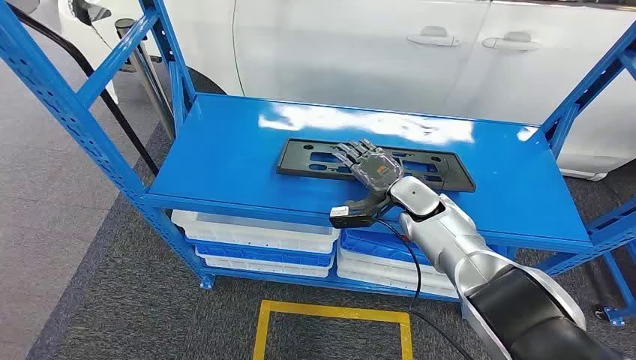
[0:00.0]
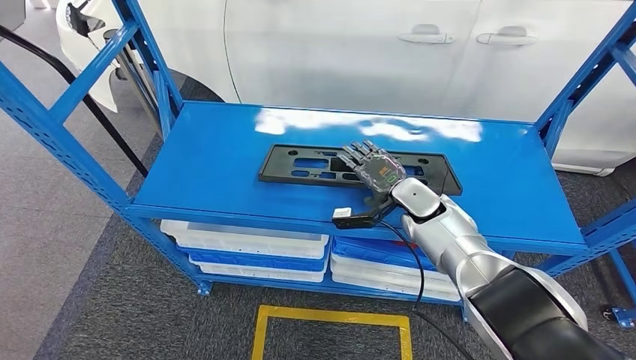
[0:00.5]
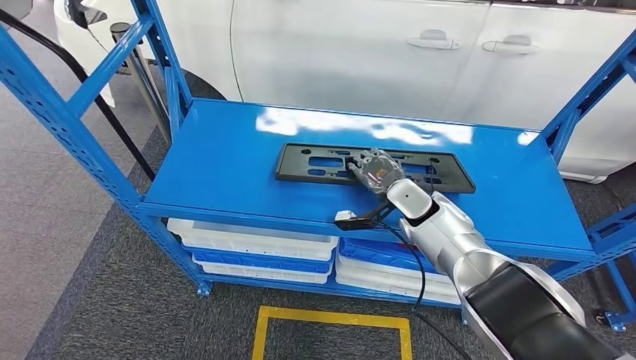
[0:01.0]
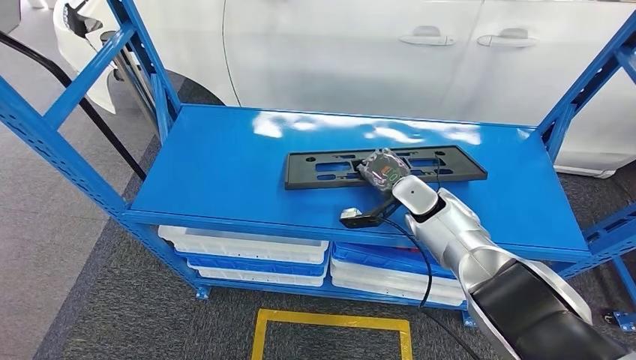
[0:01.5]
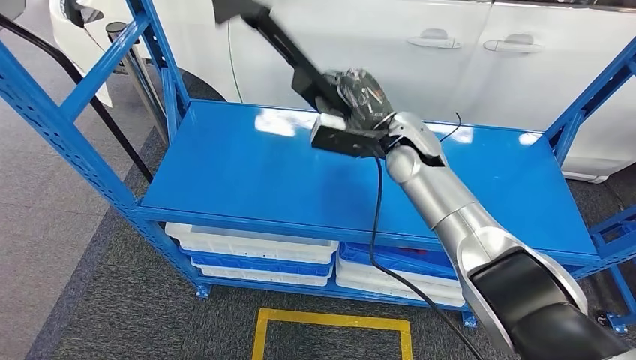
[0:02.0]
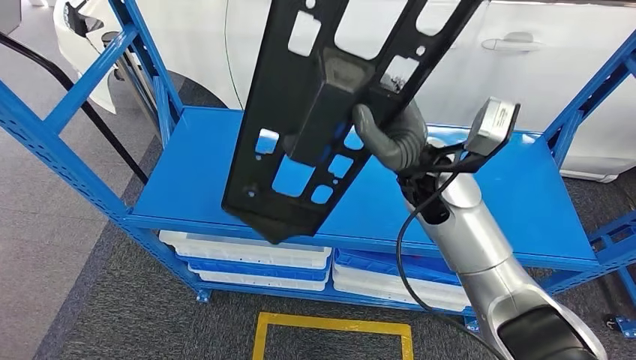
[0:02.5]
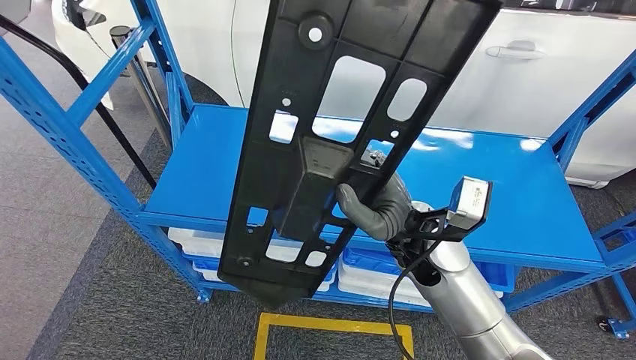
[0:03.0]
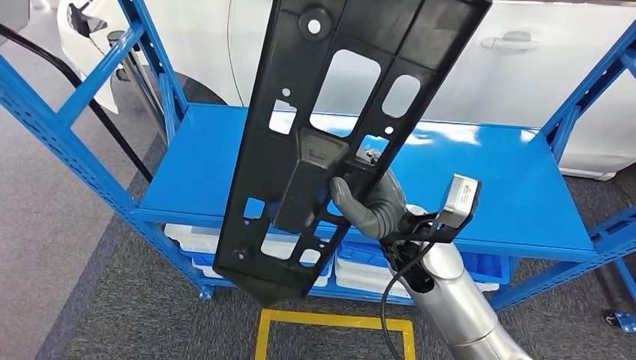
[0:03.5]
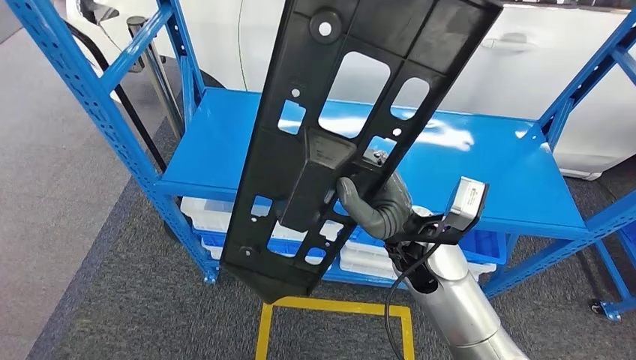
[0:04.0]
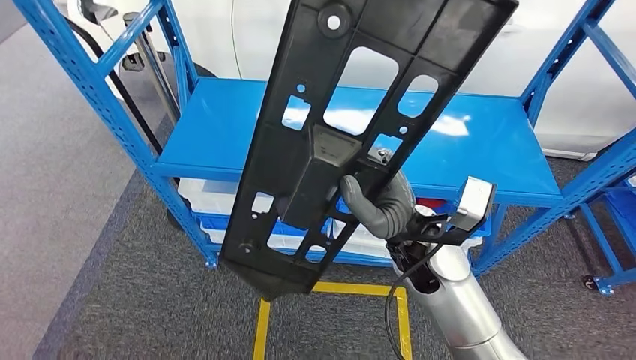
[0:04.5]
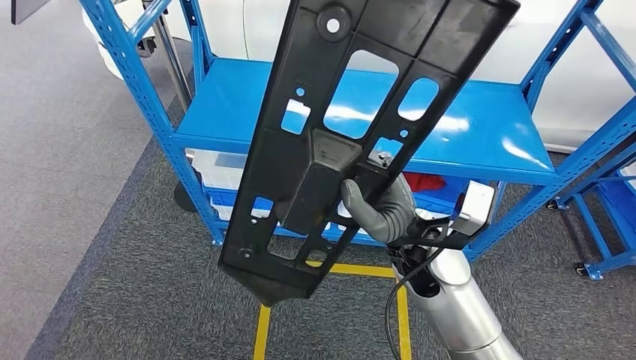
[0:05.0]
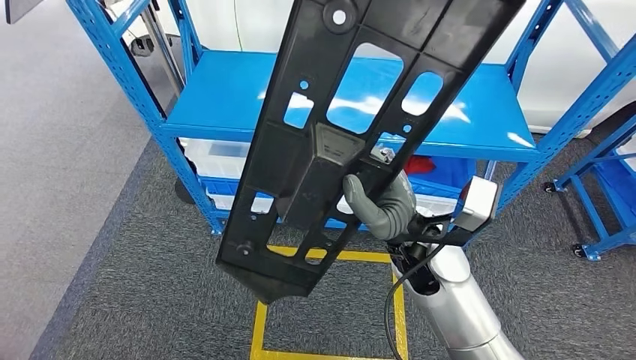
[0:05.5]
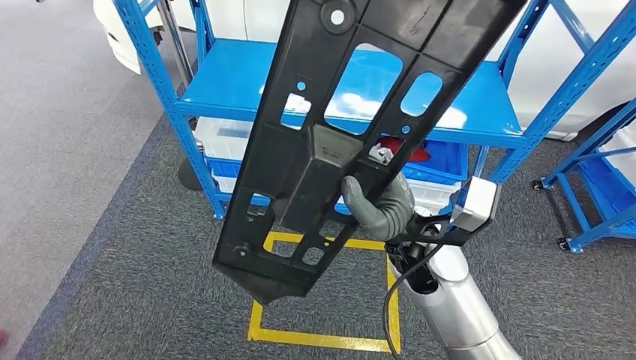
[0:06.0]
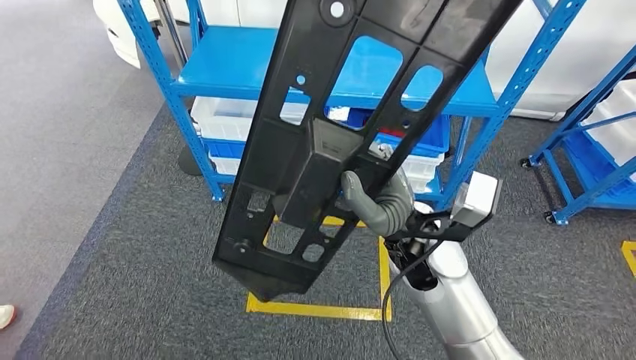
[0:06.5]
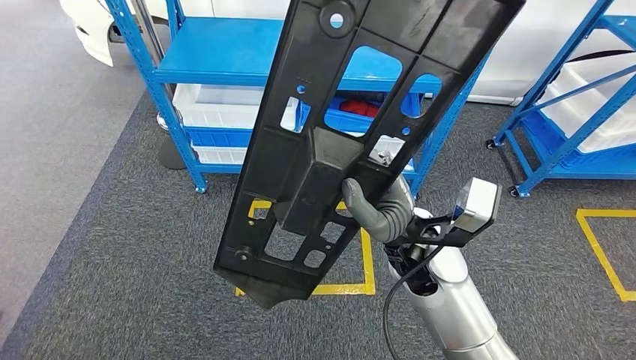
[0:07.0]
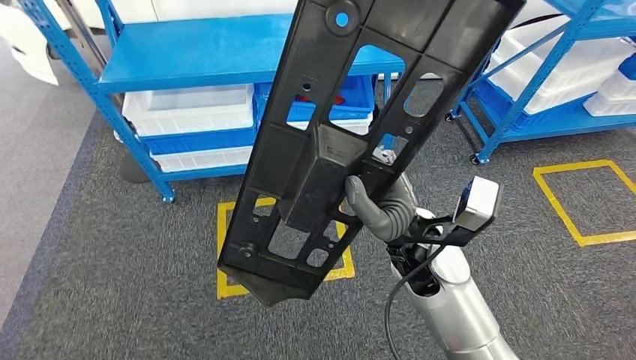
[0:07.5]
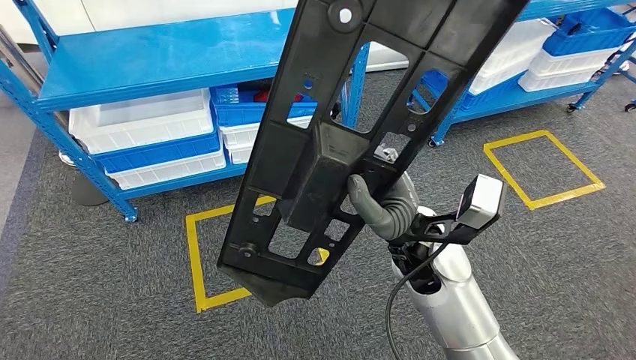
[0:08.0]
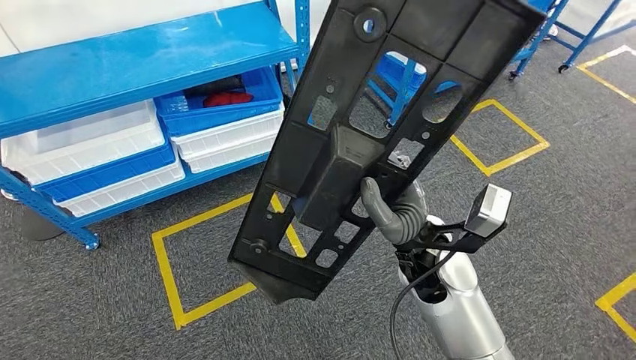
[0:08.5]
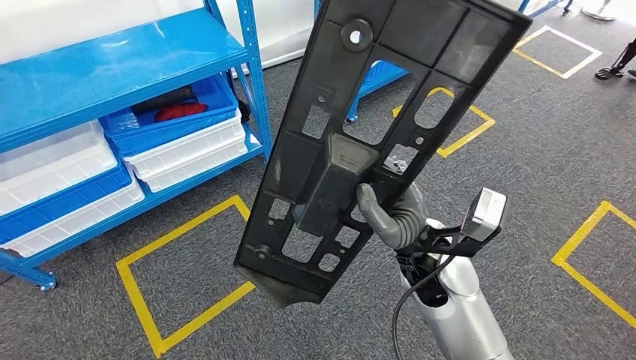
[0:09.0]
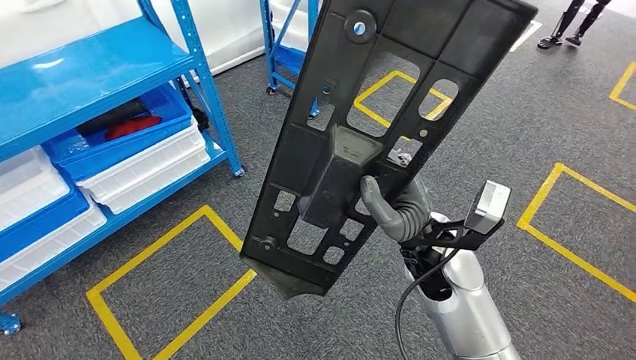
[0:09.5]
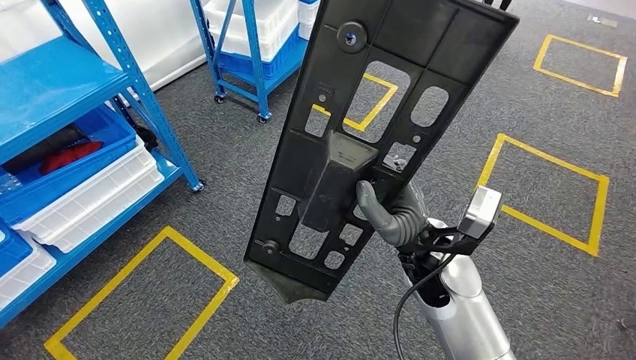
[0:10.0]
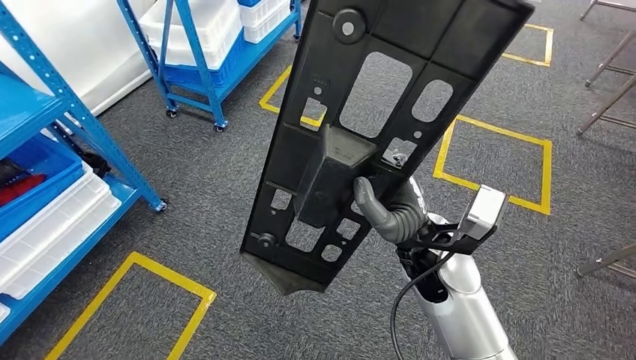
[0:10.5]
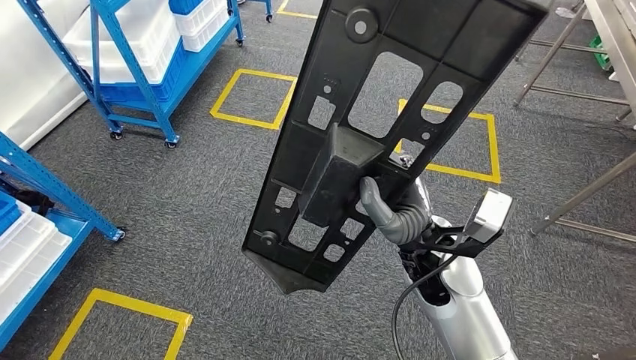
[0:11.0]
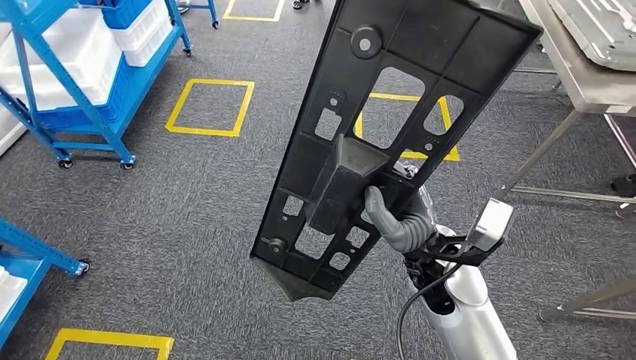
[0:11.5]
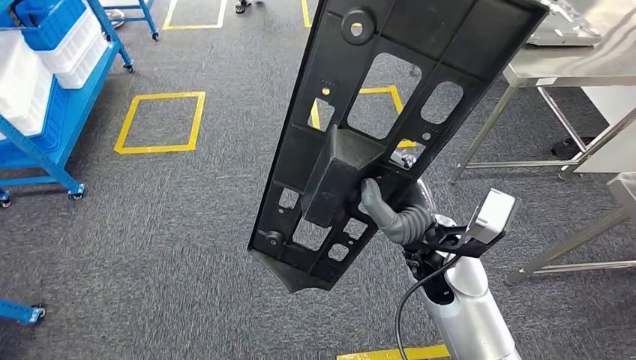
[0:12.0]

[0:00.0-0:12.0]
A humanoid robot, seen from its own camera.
Step, 0:00.0 to 0:02.5: Pick up the large material from the shelf.

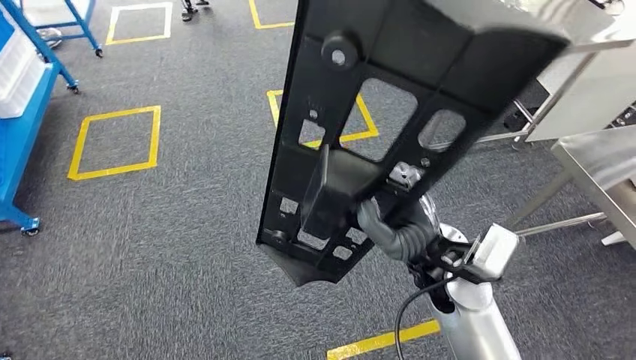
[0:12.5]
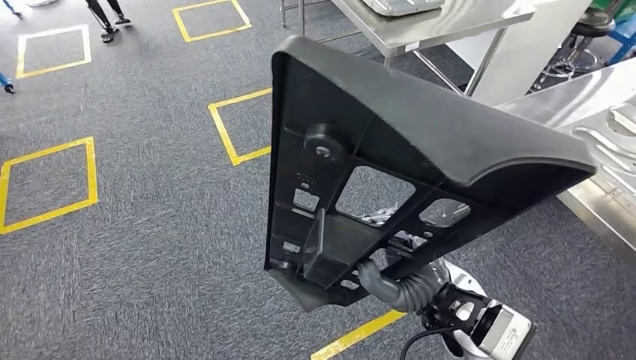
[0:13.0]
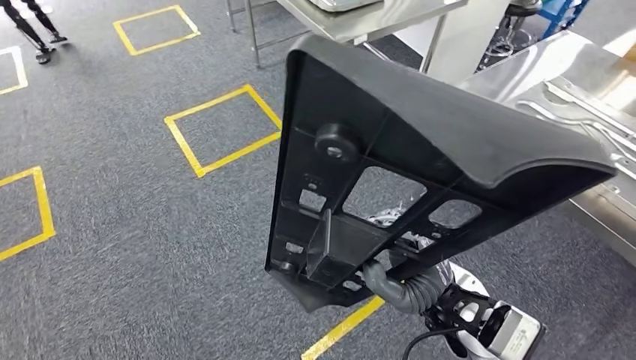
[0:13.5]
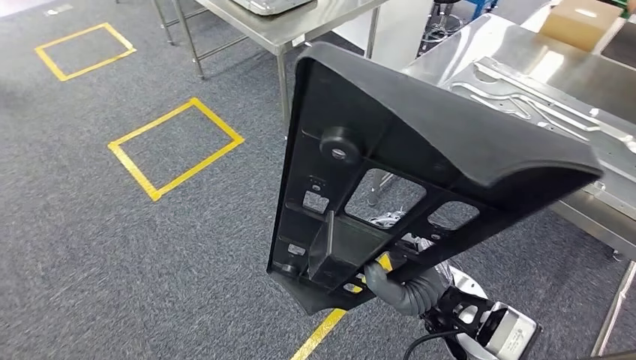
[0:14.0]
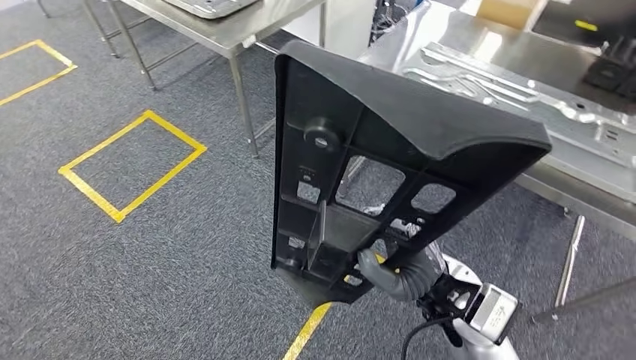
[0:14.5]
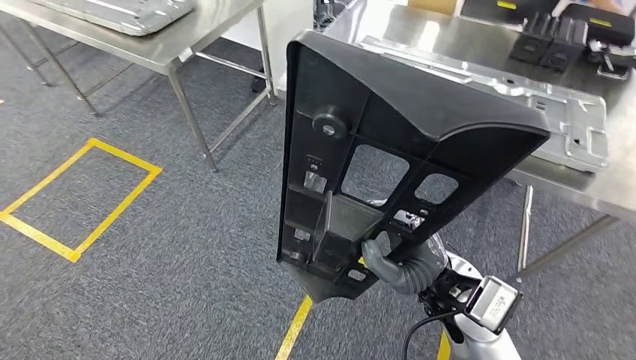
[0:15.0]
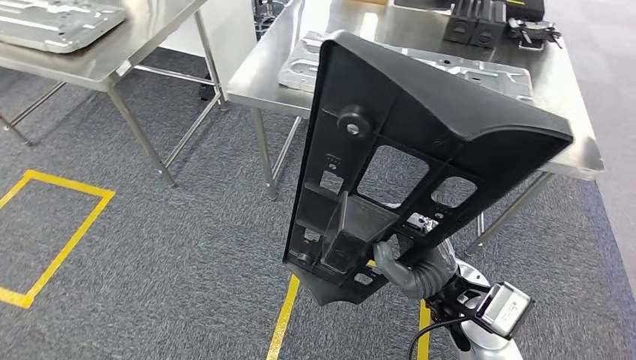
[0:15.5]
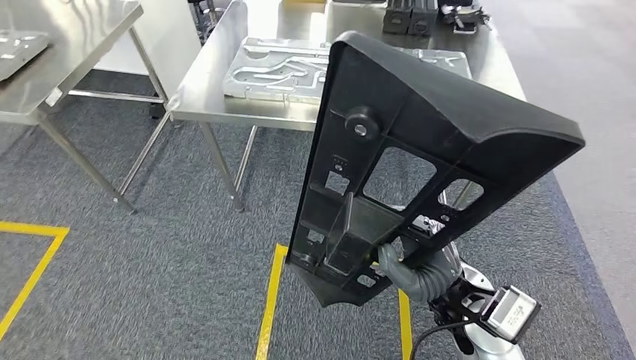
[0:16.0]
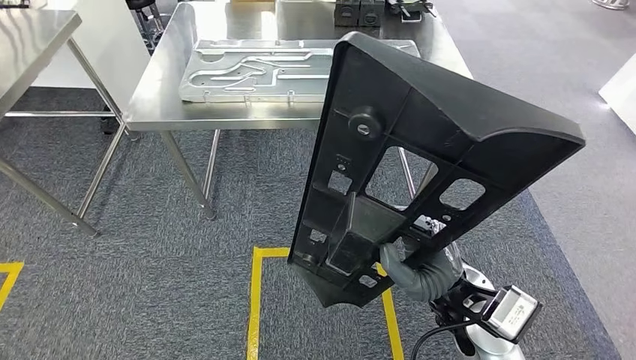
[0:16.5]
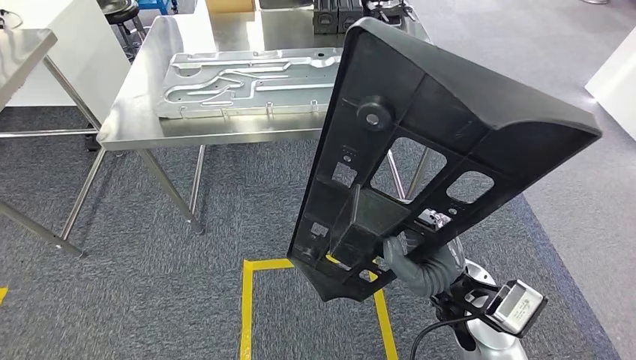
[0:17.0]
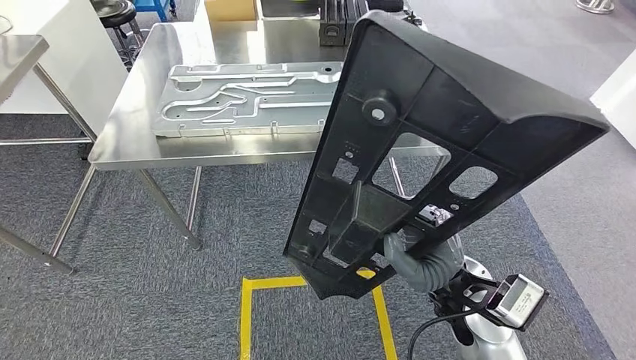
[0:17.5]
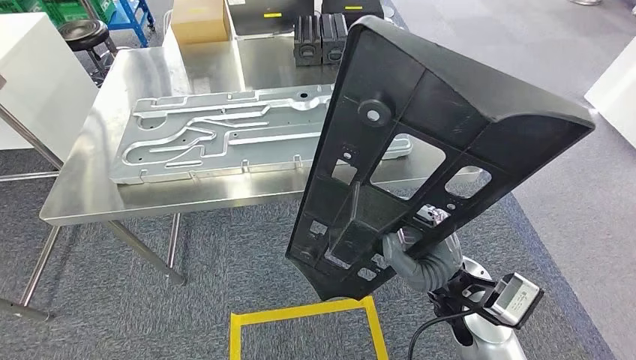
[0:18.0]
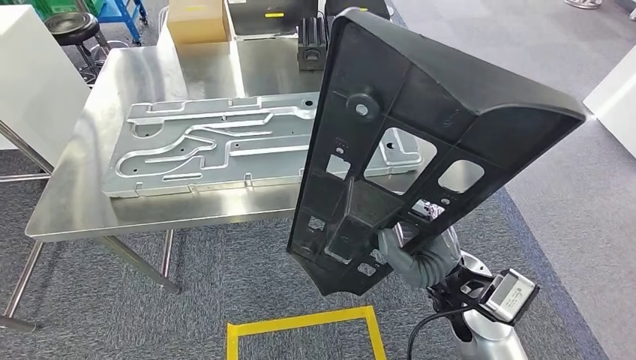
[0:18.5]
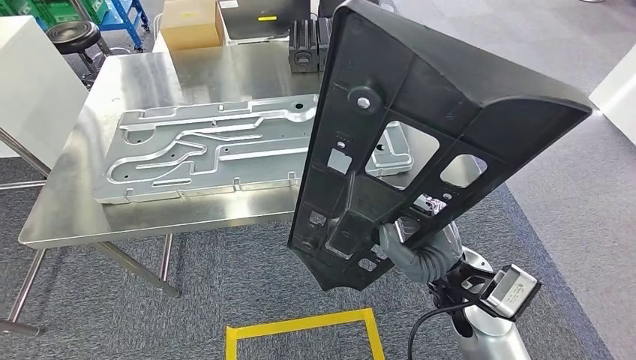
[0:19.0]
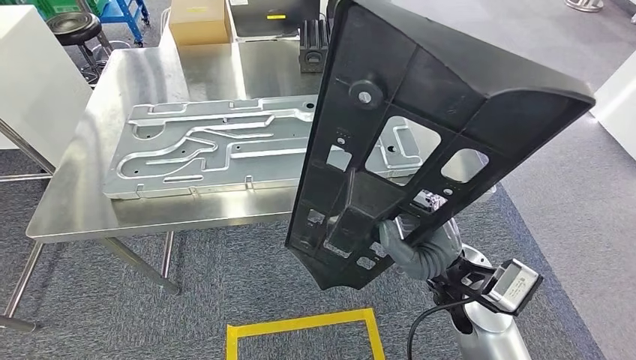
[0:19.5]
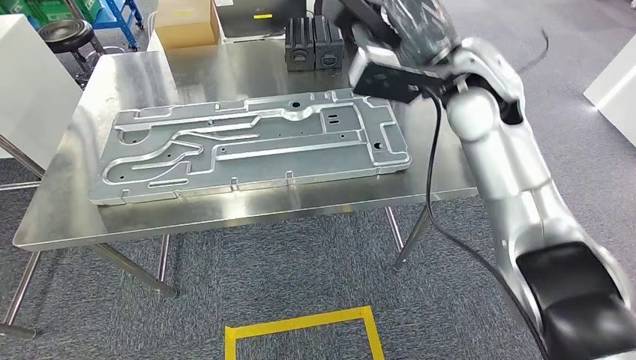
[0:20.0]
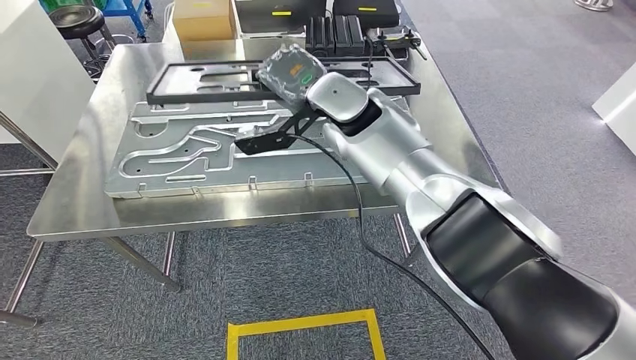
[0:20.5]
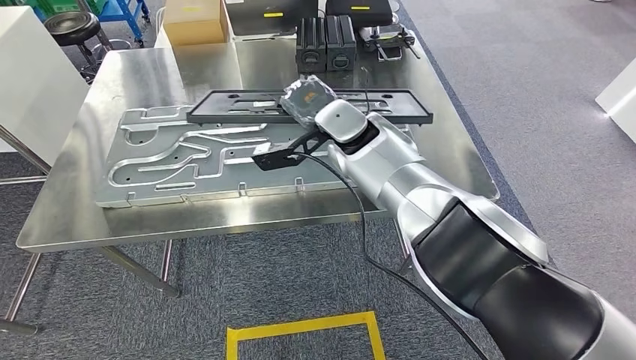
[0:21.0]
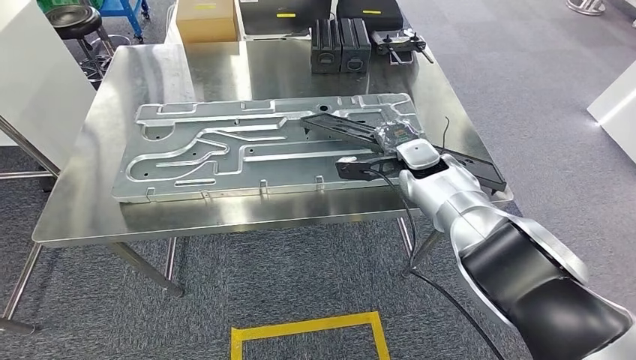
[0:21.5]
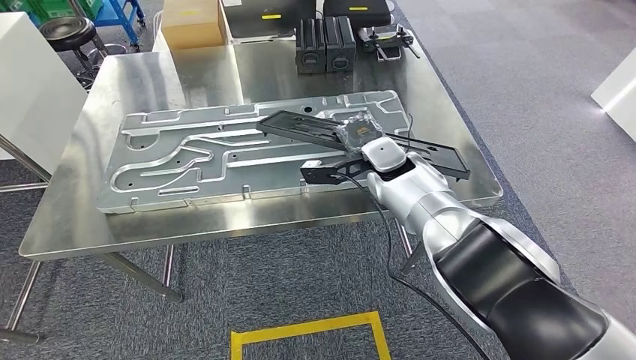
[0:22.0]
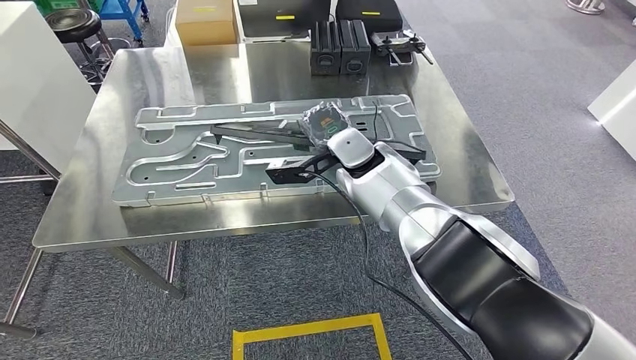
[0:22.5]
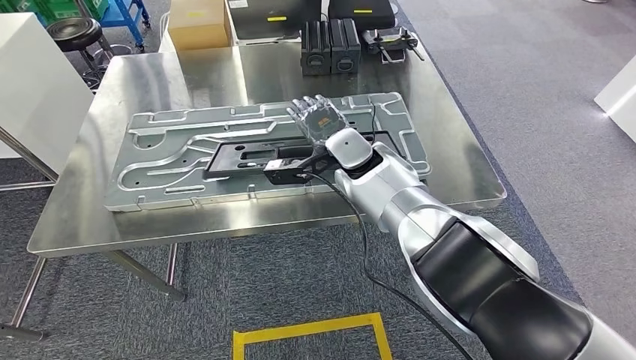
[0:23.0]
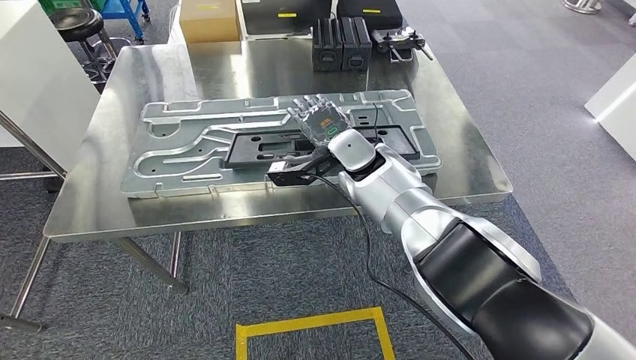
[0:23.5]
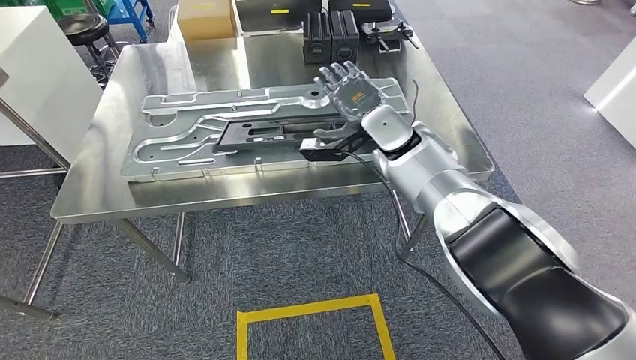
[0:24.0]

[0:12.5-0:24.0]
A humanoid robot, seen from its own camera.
Step, 0:12.5 to 0:21.5: Move the large material to the front of the workbench.
